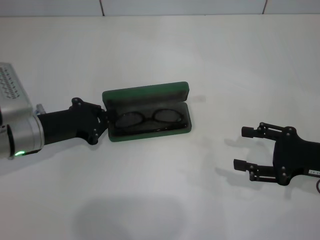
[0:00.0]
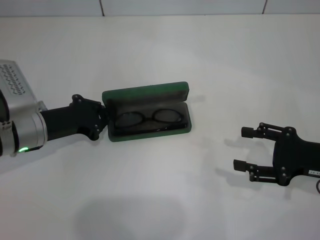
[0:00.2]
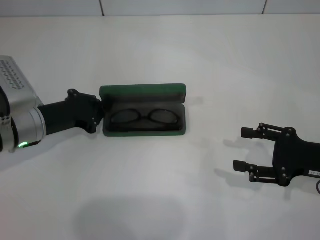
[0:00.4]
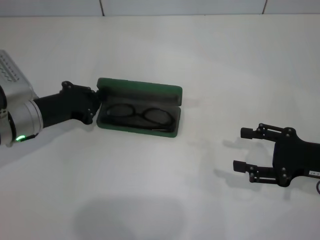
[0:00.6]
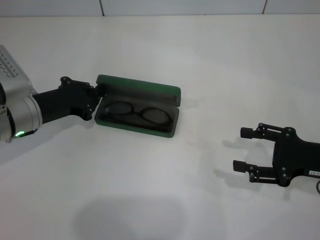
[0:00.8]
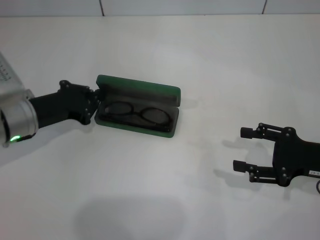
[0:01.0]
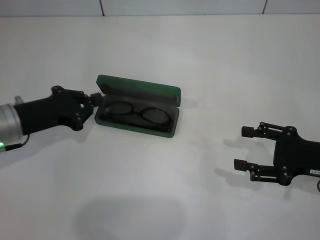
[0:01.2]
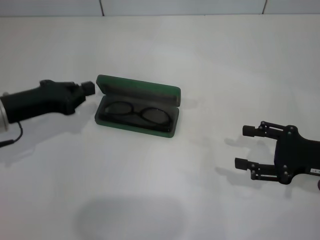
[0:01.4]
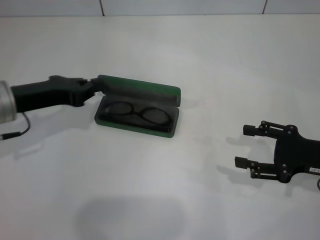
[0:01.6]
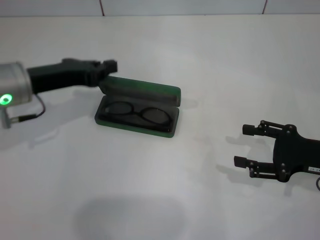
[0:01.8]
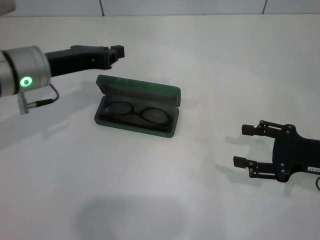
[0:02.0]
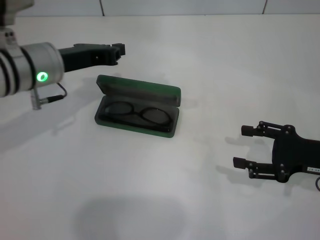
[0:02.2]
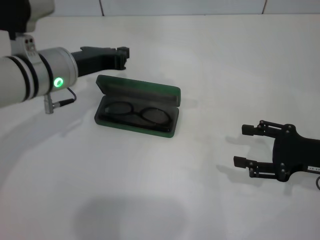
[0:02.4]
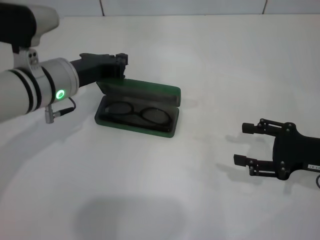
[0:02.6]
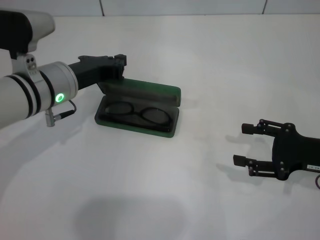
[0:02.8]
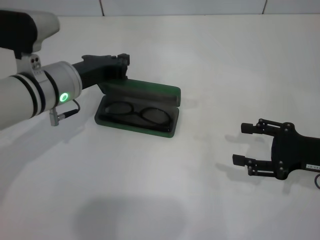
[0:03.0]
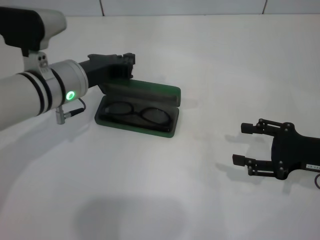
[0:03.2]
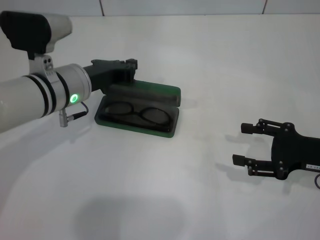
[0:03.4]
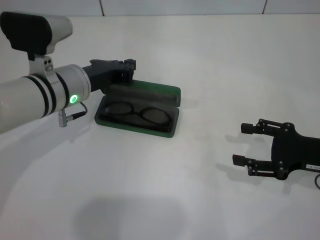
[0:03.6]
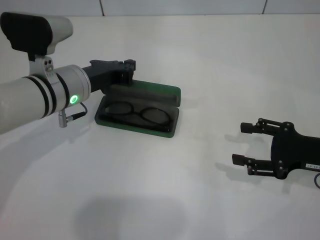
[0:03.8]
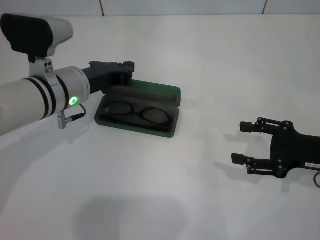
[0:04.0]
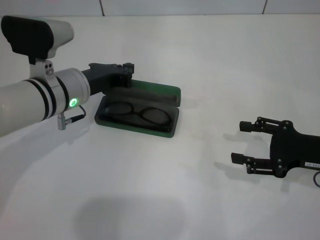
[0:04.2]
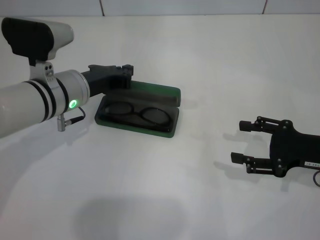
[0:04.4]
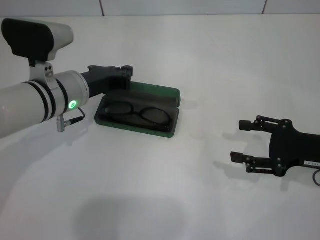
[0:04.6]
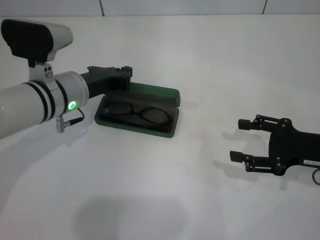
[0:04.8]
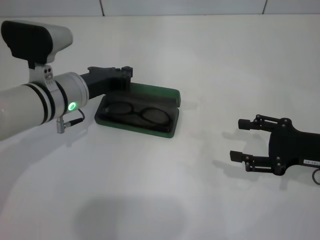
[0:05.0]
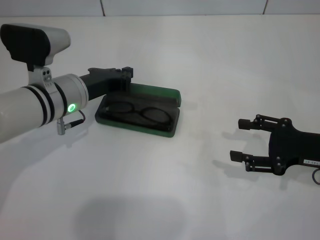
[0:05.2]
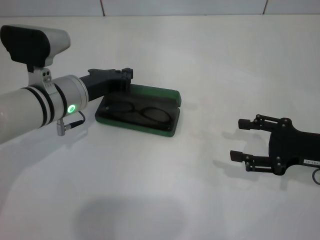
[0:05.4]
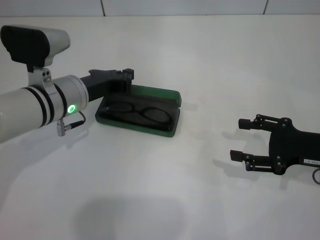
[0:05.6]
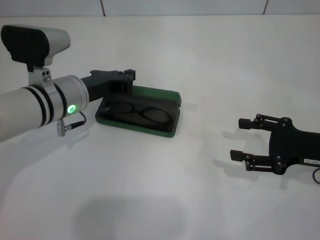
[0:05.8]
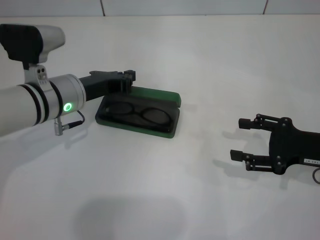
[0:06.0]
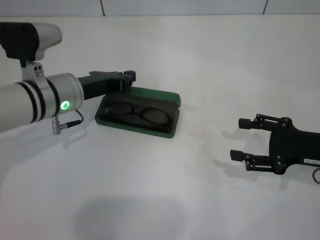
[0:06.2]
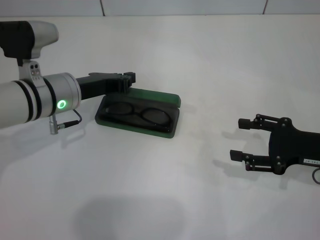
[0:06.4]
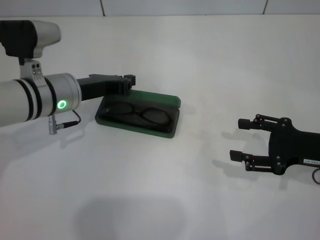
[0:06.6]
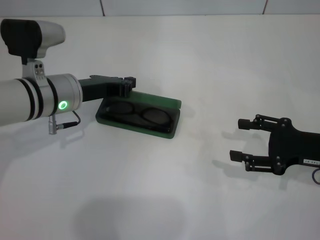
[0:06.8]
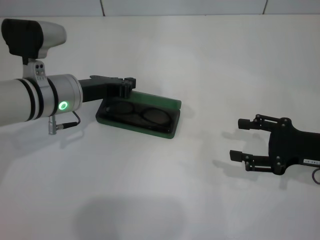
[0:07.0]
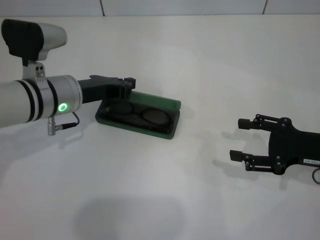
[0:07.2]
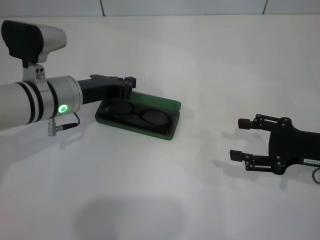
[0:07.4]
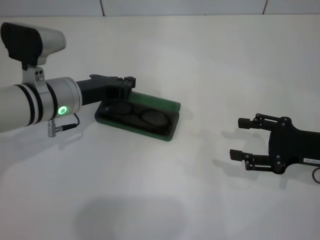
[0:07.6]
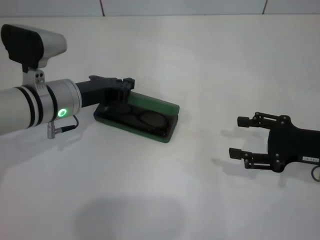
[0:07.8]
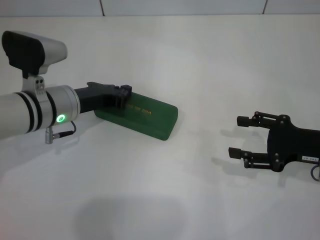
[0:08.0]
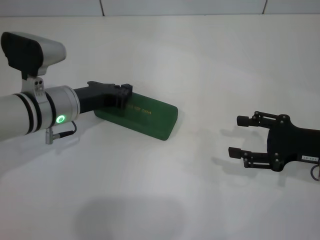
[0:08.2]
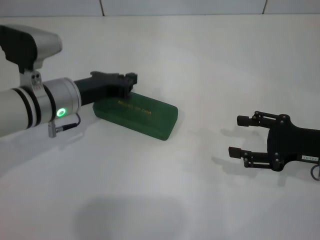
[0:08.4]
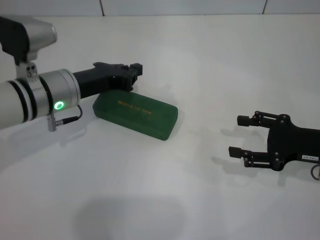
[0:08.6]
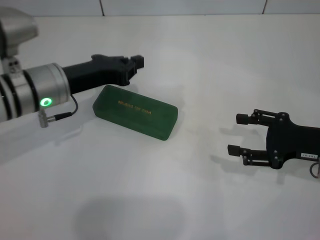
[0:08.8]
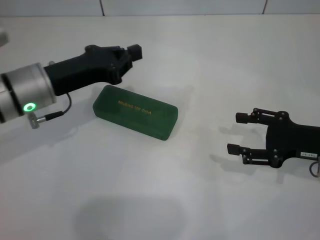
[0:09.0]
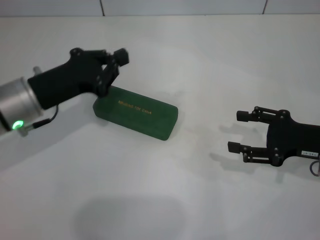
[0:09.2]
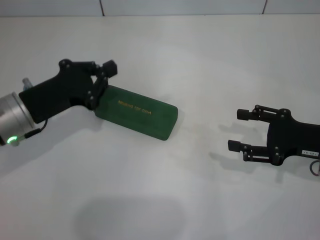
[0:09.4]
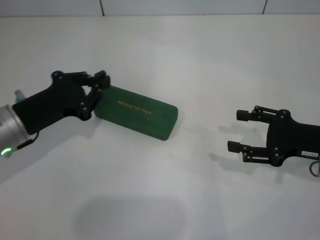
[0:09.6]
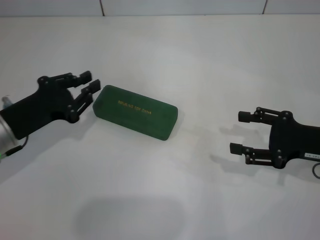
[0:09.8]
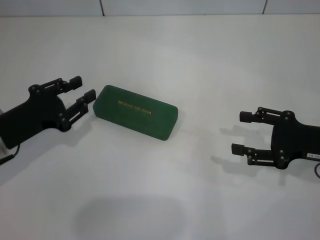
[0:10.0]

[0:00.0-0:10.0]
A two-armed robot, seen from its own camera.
Step, 0:00.0 to 0:08.0: Close the glasses case with your left hand.
0:00.0 to 0:01.4: The left gripper moves roughly 5 cm.
0:01.4 to 0:02.8: The left gripper goes approximately 10 cm to the right.
0:02.8 to 0:08.6: The grippers make only small movements.
0:08.6 to 0:10.0: The left gripper moves to the left and backward, some 10 cm.

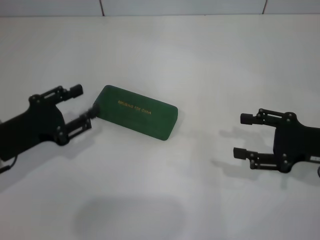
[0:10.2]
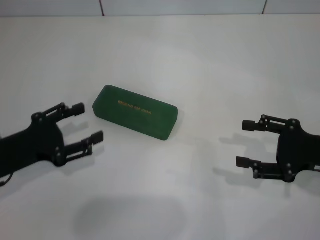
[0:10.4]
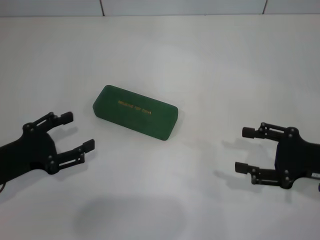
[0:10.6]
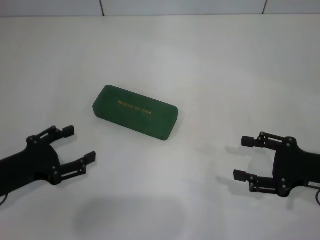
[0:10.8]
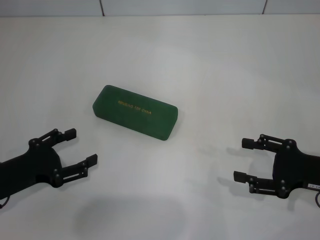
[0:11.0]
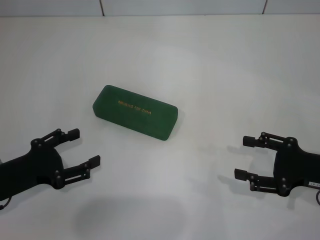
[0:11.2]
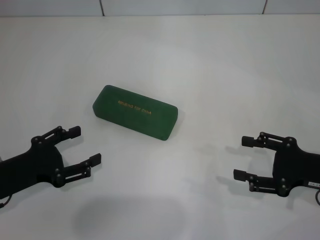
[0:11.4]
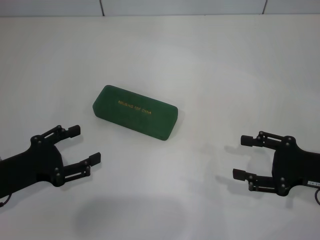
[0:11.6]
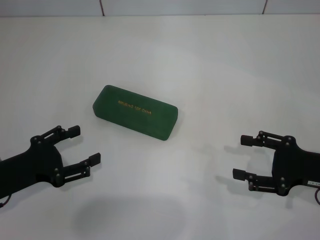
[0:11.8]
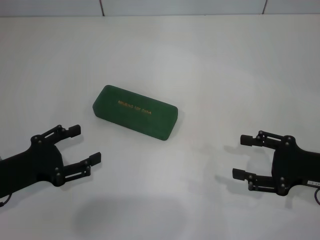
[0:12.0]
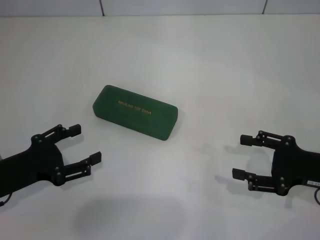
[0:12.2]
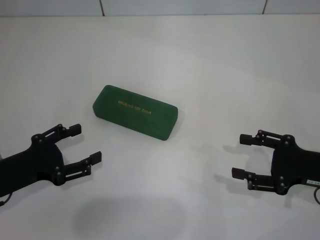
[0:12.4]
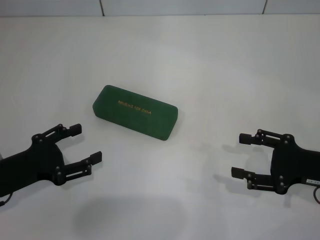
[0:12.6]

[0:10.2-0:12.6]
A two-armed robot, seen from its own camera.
0:10.2 to 0:11.4: The left gripper opens.
0:11.4 to 0:12.6: Both grippers stay put.

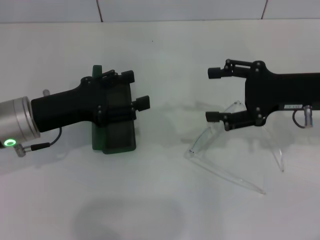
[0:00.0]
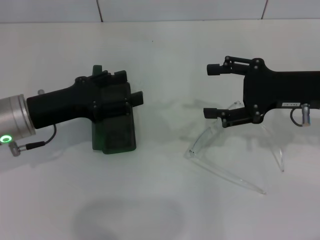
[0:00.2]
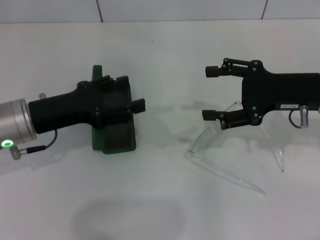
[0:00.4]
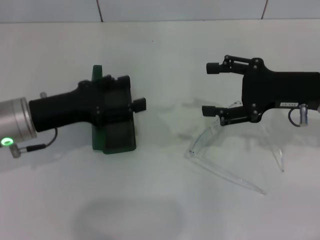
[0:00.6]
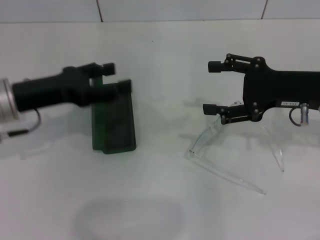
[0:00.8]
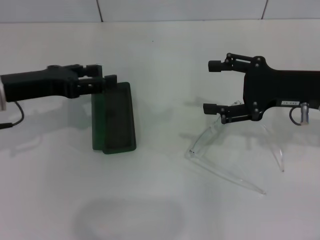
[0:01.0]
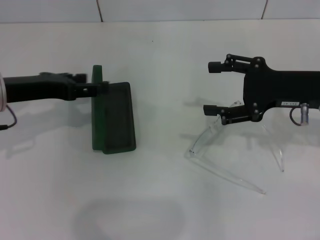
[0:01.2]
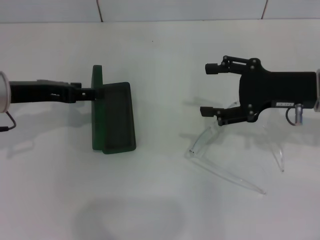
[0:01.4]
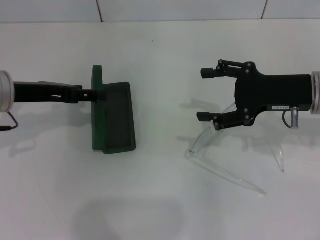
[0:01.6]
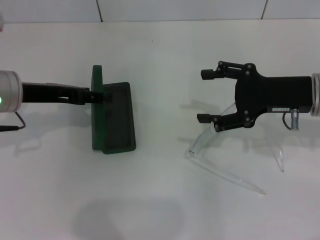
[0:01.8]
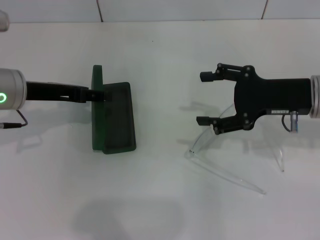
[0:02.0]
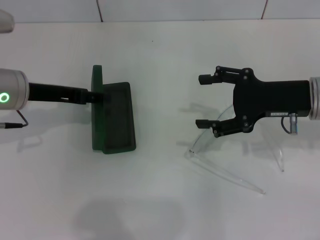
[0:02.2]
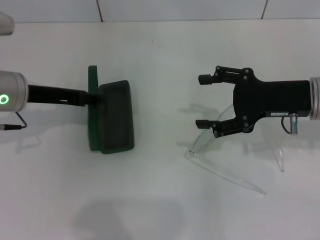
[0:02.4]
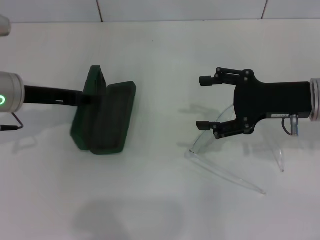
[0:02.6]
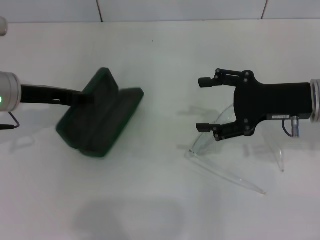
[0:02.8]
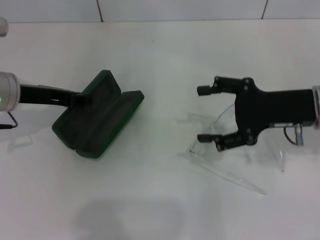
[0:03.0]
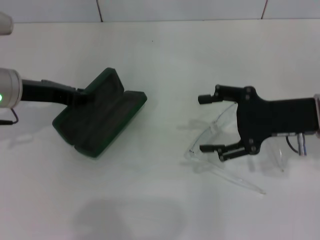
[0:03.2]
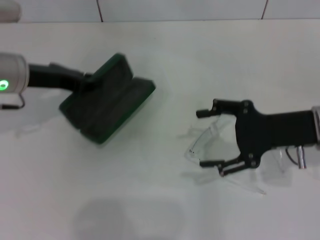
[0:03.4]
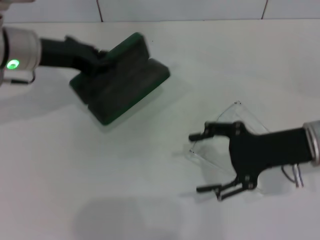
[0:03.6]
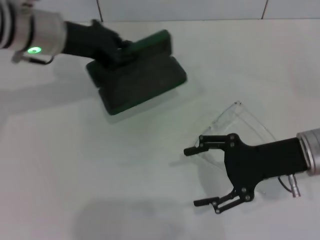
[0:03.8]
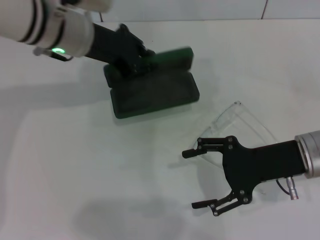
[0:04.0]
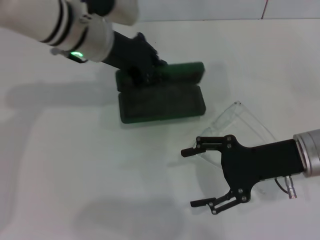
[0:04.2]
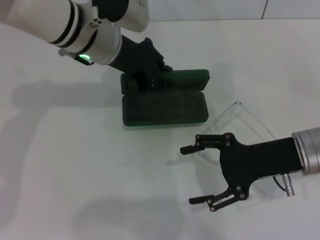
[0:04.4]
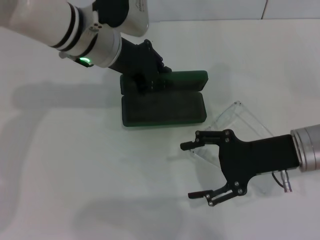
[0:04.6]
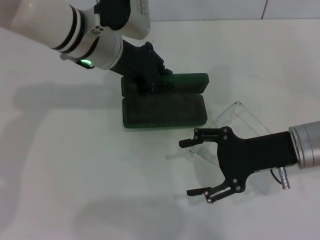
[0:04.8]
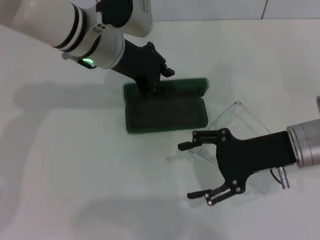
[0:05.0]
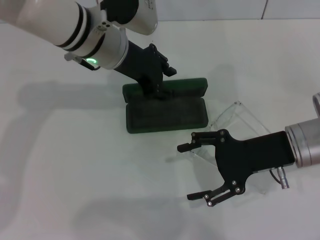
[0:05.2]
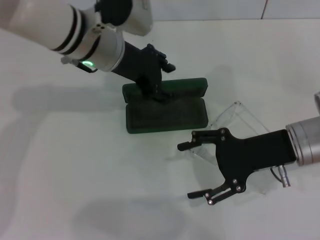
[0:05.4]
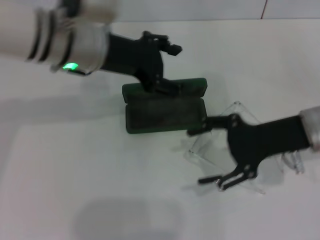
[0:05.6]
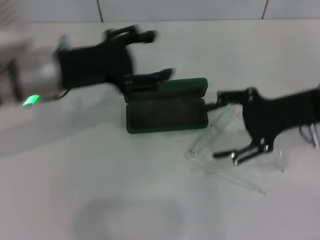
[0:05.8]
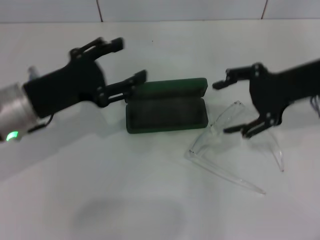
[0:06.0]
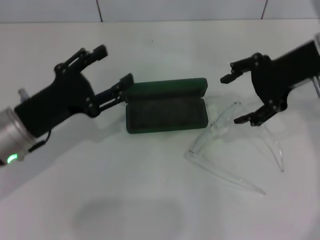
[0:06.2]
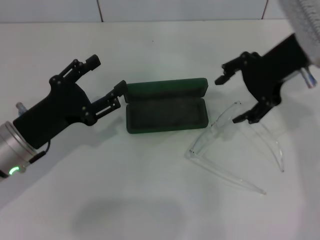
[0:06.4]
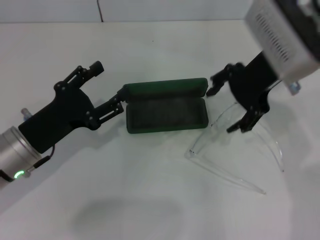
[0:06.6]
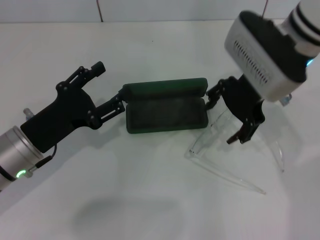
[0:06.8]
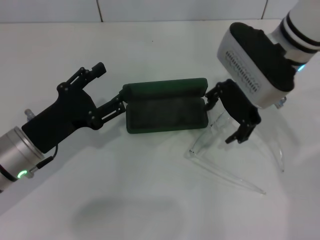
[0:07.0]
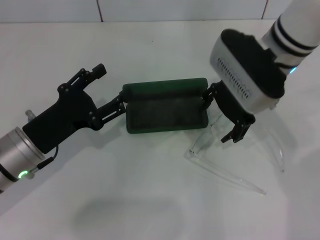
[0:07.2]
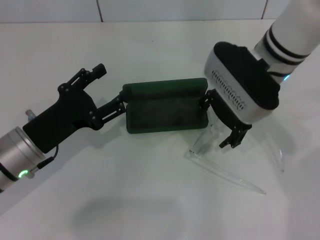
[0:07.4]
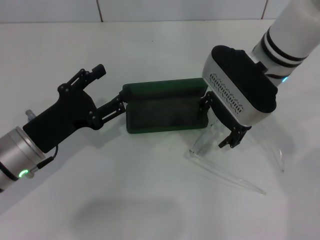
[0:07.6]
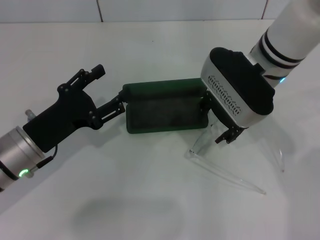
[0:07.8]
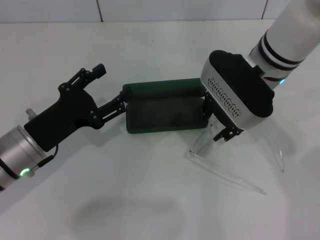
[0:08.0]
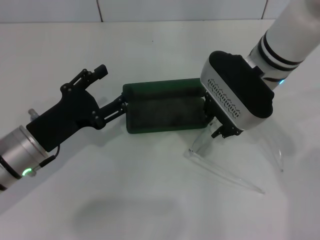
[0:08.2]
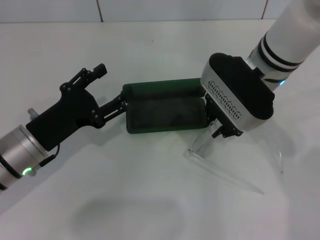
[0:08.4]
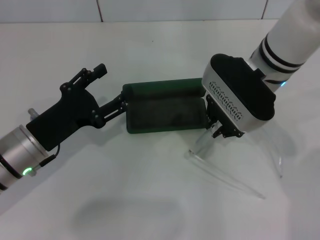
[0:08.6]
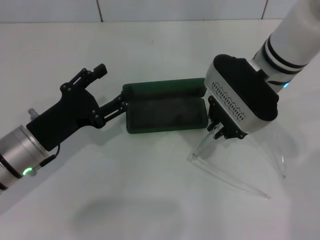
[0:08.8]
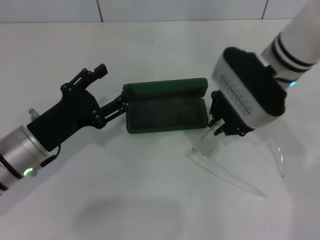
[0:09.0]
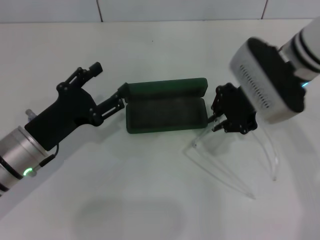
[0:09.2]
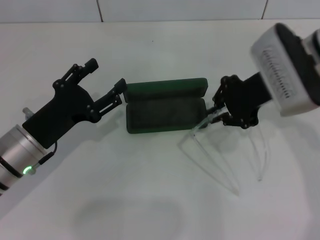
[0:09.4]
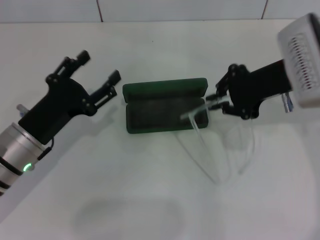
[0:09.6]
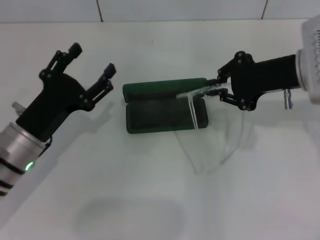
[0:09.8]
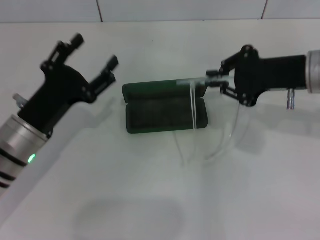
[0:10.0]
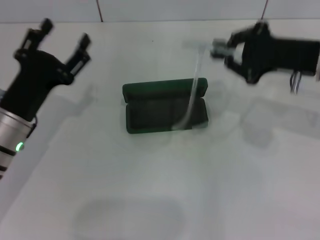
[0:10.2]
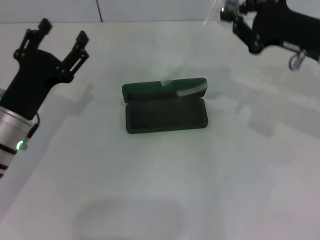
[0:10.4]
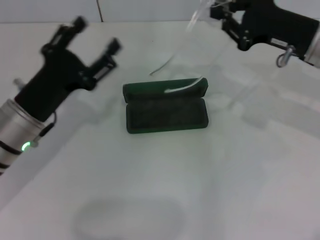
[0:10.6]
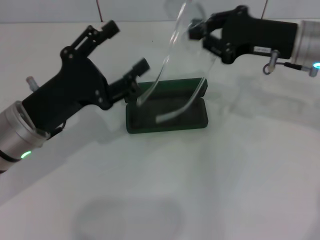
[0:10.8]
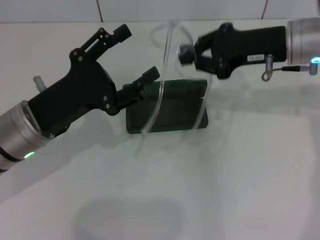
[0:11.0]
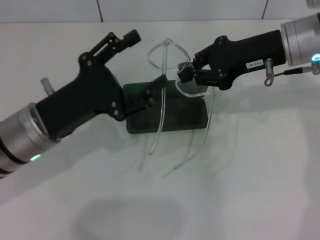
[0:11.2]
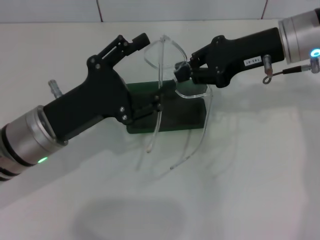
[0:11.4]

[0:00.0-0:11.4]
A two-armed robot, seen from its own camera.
Step, 0:00.0 to 0:02.2: Grab the glasses case with your left hand.
Step, 0:02.6 to 0:05.0: Place the glasses case in the center of the table with your left hand.
Step, 0:05.2 to 0:08.6: Grab the eyeglass frame with your right hand.
0:00.0 to 0:01.4: The left gripper changes place by some 5 cm.
0:01.4 to 0:02.8: The left gripper closes its fingers.
0:02.8 to 0:04.2: The left gripper is displaced to the right, forward and upward by approximately 15 cm, and closes up; the right gripper shifts by roughly 5 cm.
0:04.2 to 0:05.6: The left gripper opens.
0:05.6 to 0:07.2: The right gripper travels to the left, forward and upward by some 15 cm; the left gripper is displaced downward, backward and to the left by approximately 20 cm.
0:07.2 to 0:08.6: The right gripper closes its fingers.
0:08.6 to 0:10.0: The right gripper shifts approximately 10 cm to the right.
0:10.0 to 0:11.4: The left gripper changes place by approximately 5 cm. Meanwhile the right gripper ends up approximately 5 cm from where it was.
